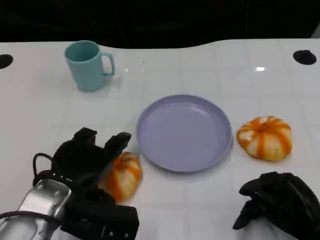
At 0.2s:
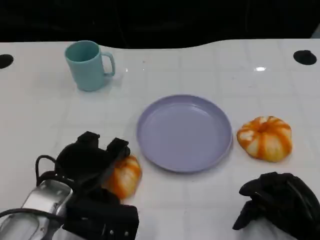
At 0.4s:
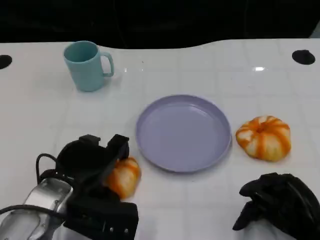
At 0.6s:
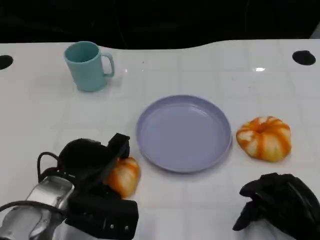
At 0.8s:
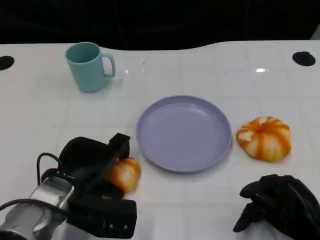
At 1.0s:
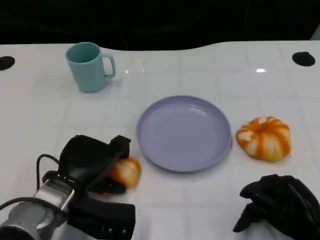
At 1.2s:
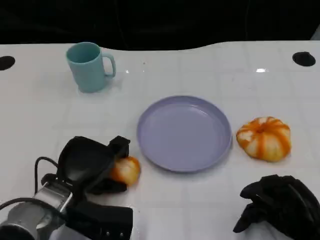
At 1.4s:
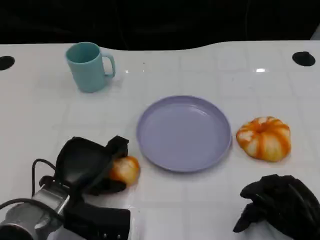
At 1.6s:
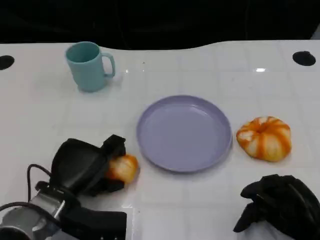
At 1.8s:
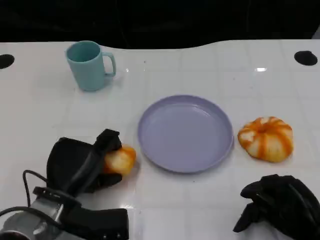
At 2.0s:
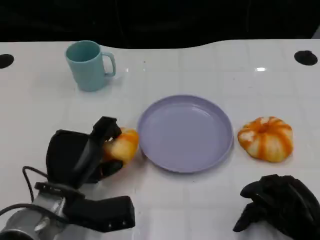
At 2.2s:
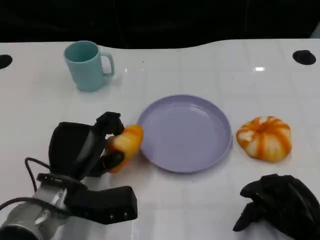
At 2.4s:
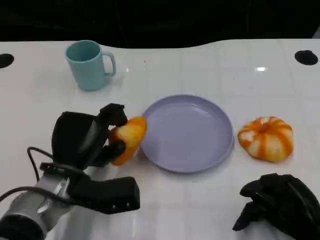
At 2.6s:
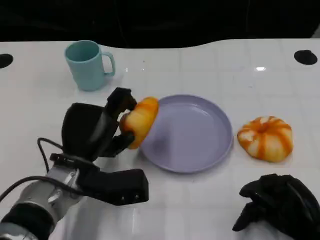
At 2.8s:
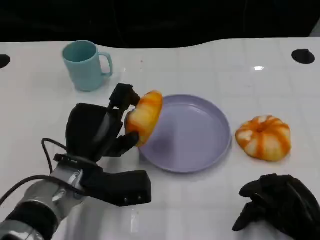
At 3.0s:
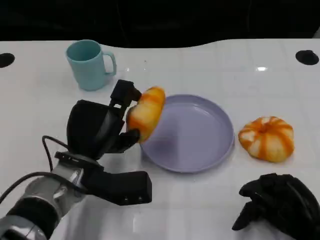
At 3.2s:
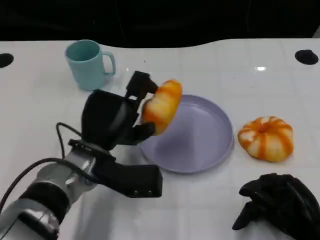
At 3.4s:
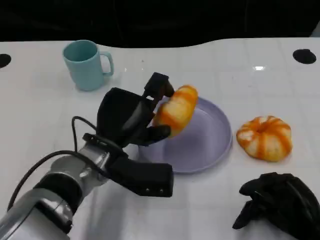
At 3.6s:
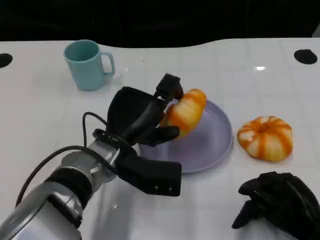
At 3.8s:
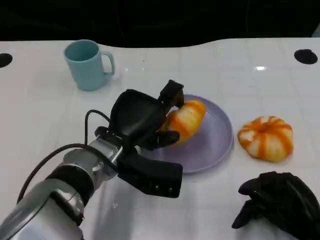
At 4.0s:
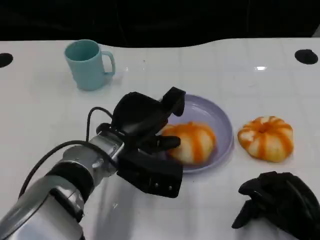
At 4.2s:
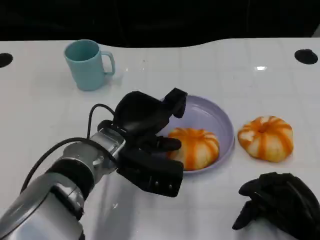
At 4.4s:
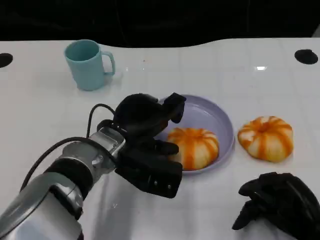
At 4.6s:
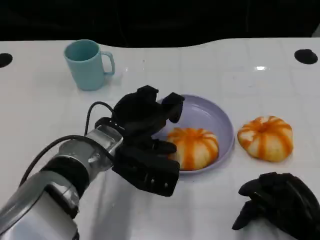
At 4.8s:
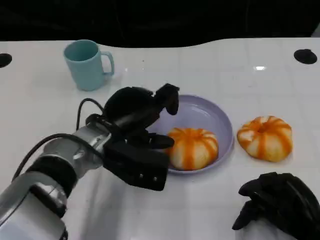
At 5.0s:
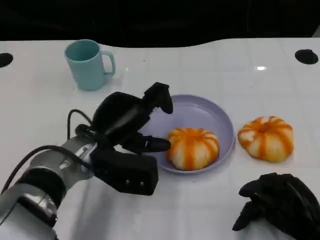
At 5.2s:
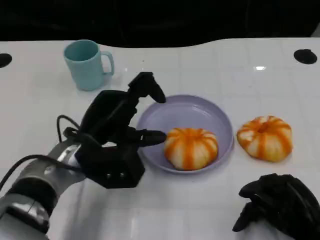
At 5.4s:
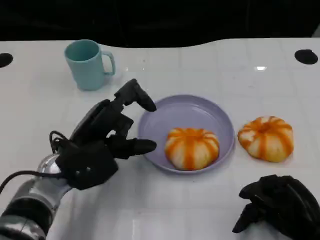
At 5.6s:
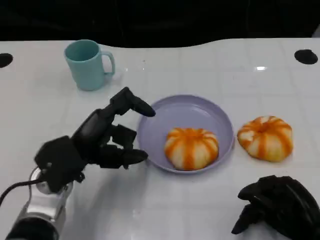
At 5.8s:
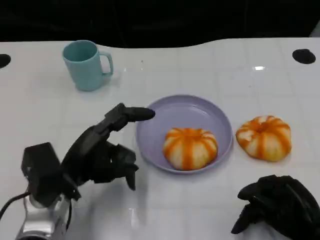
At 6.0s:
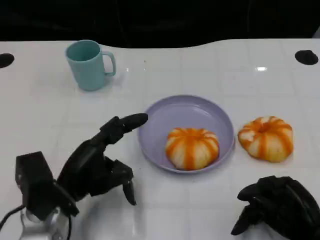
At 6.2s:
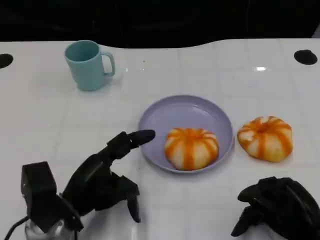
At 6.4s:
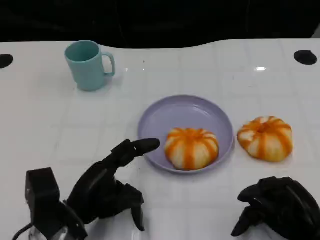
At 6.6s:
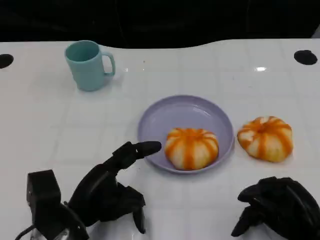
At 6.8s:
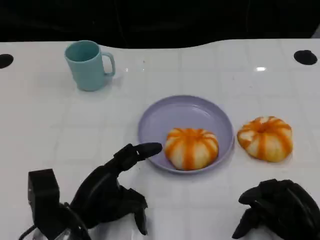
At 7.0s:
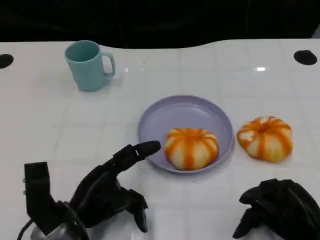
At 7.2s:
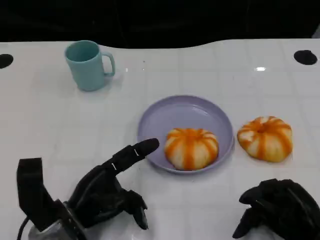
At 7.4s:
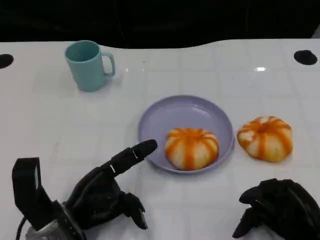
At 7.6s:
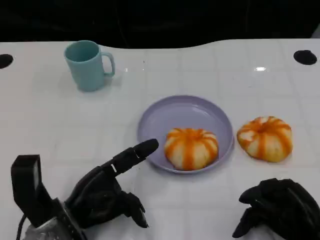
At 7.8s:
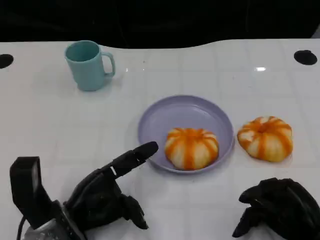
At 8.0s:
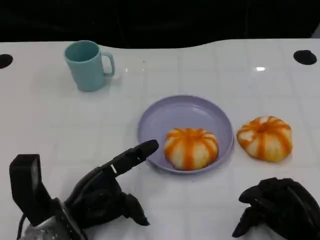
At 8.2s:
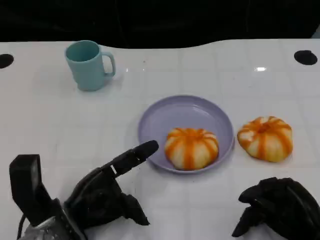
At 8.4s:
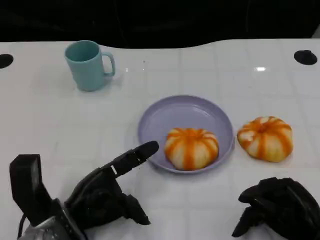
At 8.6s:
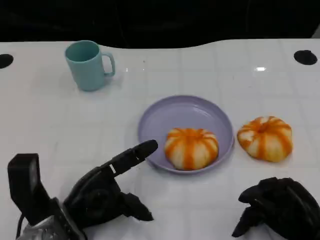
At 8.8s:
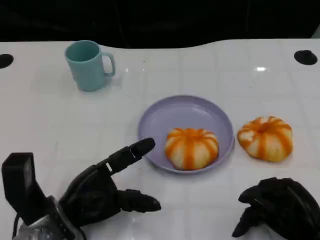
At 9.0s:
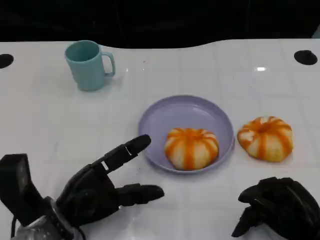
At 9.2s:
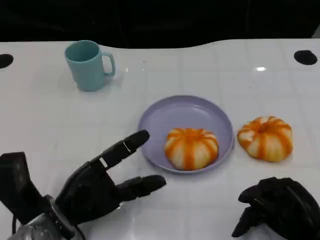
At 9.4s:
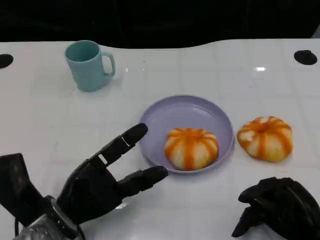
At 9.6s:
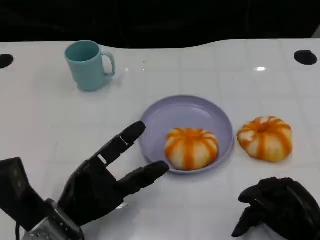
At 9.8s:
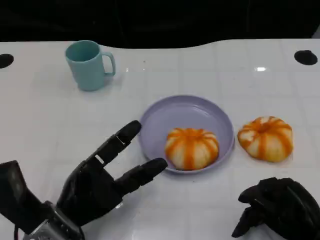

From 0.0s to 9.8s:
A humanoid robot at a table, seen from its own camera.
Task of the whole recording: Grasp the bread from the table and place it into the plate.
From 0.0s to 1.4s: The left hand heads downward, covering some 5 cm.
From 1.4s to 2.8s: The left hand moves some 5 cm.
From 2.8s to 4.2s: The left hand goes roughly 5 cm to the right.
From 4.2s to 5.6s: The left hand heads to the left, covering roughly 10 cm.
From 5.6s to 7.0s: The left hand is displaced downward by approximately 5 cm.
From 8.4s to 9.8s: The hands stay close to where they were, moving slightly.

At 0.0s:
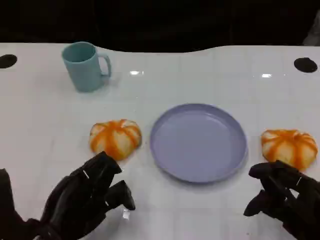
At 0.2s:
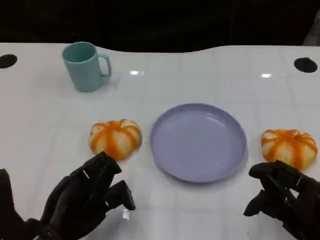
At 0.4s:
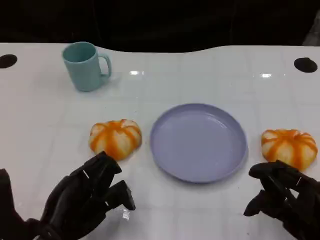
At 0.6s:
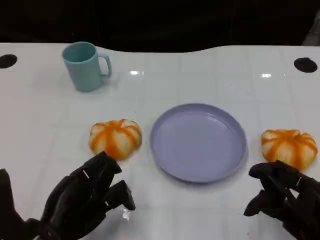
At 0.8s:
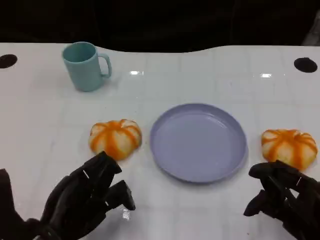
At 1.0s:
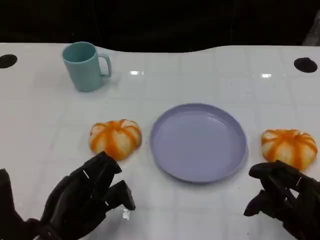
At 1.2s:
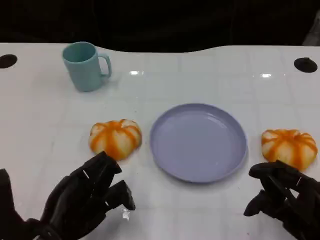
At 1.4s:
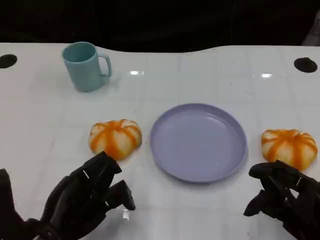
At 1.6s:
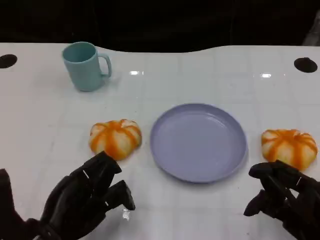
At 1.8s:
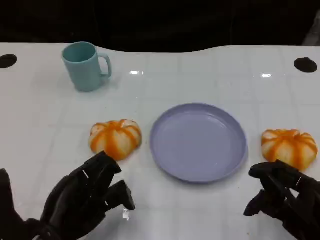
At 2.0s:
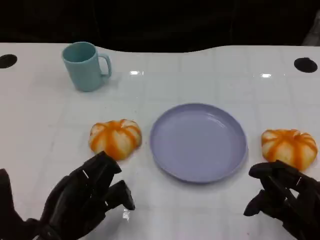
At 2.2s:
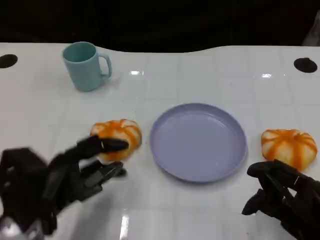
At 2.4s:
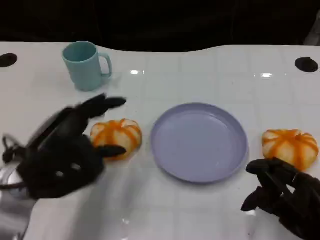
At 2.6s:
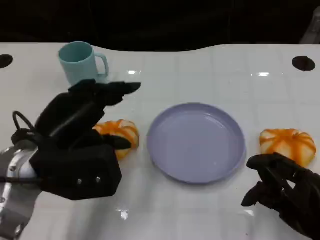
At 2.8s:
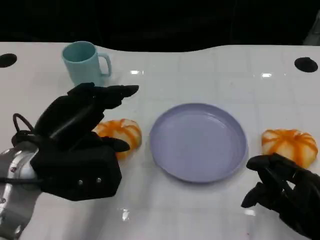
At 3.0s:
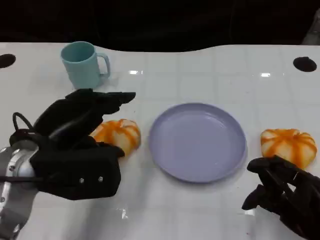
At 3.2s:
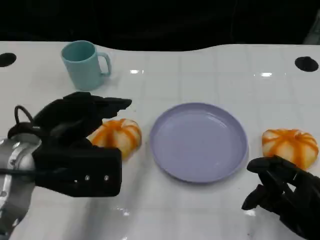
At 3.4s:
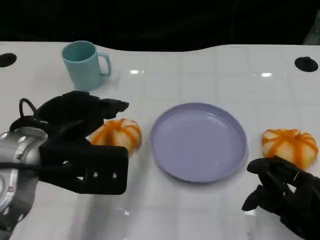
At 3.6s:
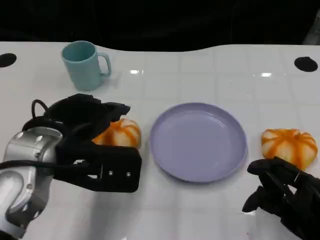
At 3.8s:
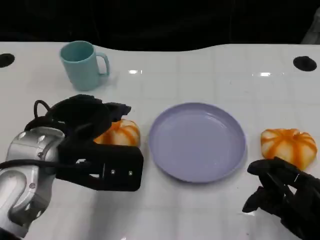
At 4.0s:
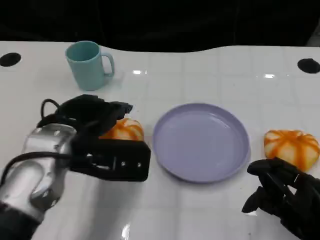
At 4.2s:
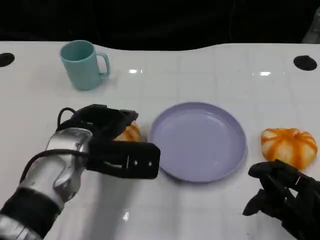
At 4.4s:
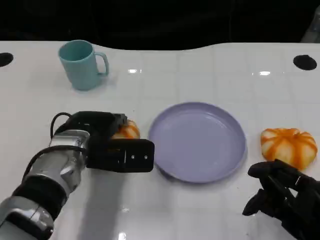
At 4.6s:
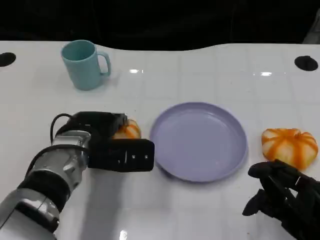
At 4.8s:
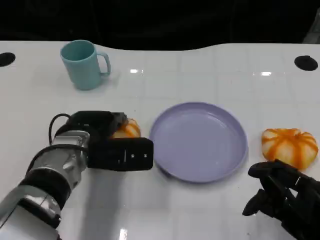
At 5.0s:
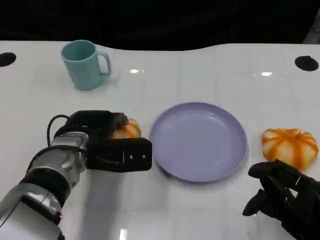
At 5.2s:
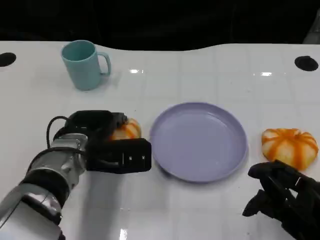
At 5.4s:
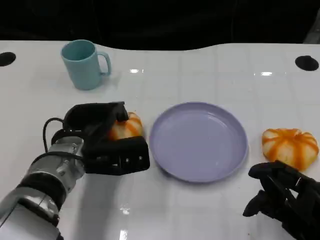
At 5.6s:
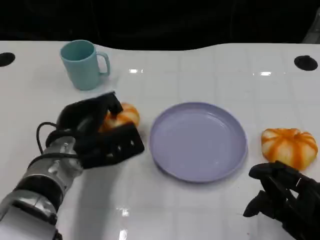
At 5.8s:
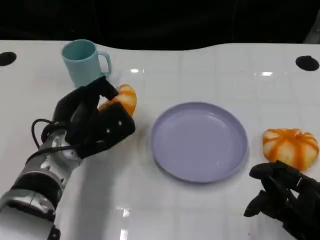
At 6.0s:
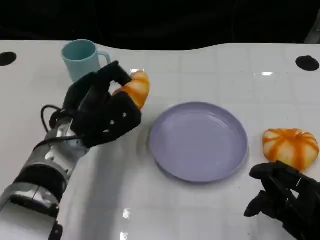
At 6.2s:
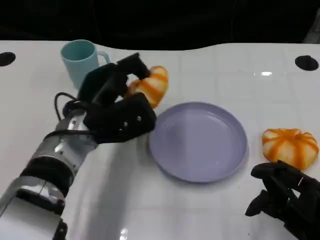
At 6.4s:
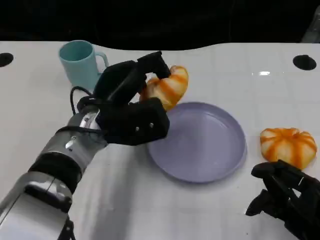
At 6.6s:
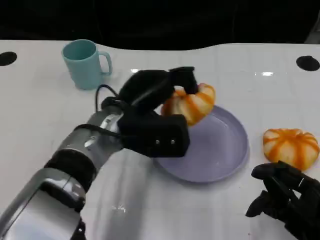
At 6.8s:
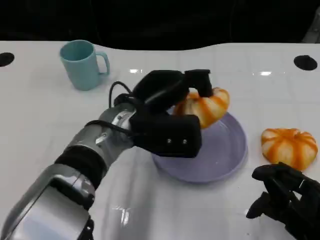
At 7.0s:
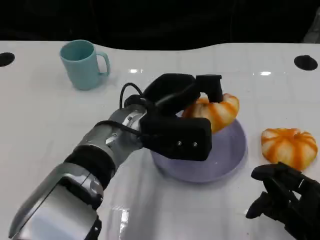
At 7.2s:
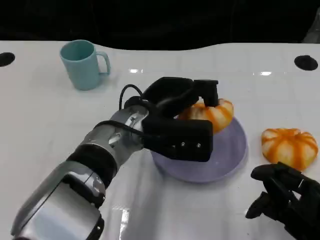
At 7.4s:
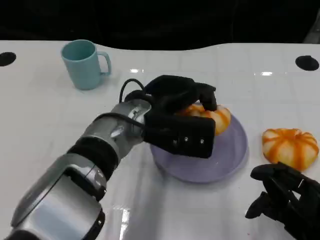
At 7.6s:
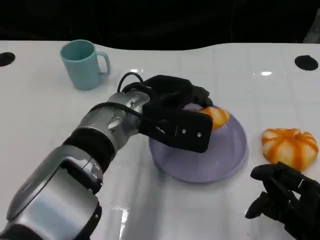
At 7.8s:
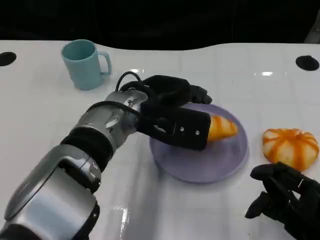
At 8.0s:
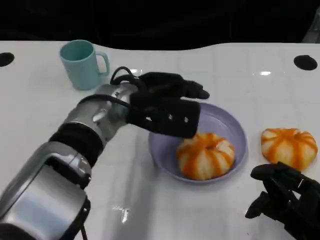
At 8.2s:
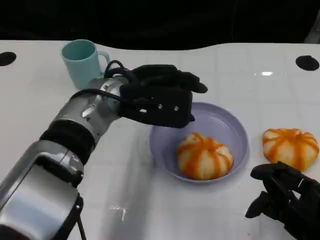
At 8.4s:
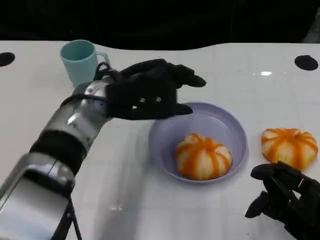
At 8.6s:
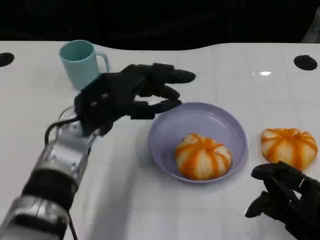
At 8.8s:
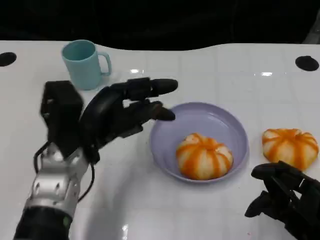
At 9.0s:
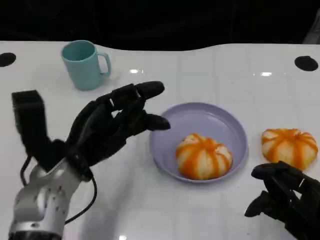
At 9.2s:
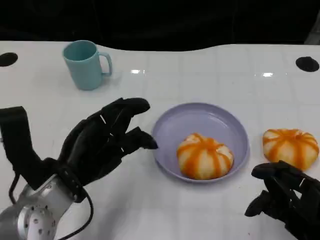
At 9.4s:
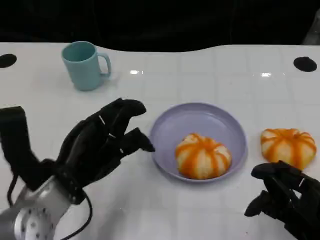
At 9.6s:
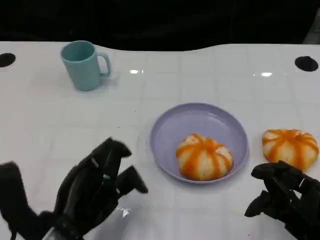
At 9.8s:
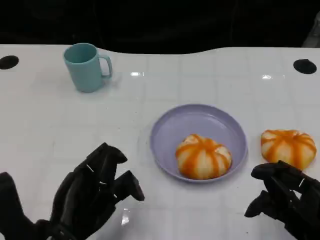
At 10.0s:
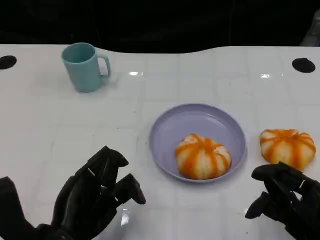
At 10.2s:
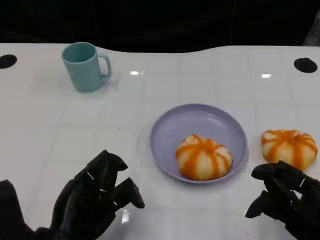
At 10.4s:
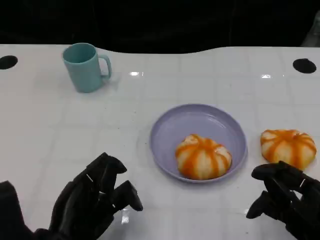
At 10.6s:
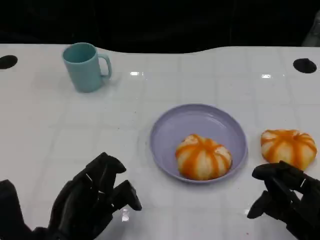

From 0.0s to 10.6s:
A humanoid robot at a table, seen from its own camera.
Task of the whole recording: Grasp the bread from the table and place it into the plate.
From 0.0s to 1.6s: Both hands stay about where they are.
From 1.6s to 3.0s: The left hand shifts some 10 cm upward and forward.
From 3.0s to 4.6s: The left hand is displaced downward, forward and to the right by approximately 10 cm.
From 6.0s to 7.6s: The left hand moves to the right, approximately 10 cm.
From 7.6s to 9.0s: The left hand moves to the left and backward, roughly 15 cm.
From 9.0s to 10.6s: The left hand goes approximately 10 cm backward.

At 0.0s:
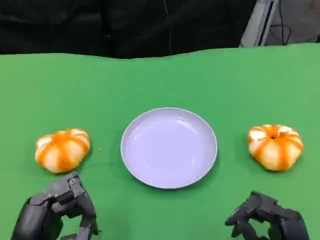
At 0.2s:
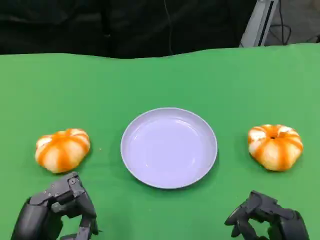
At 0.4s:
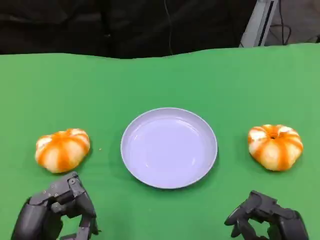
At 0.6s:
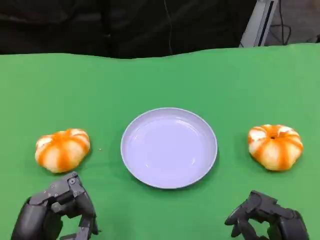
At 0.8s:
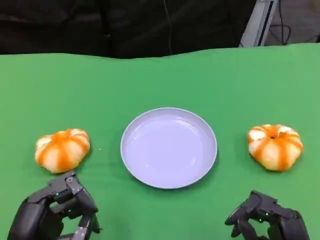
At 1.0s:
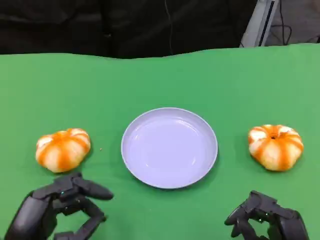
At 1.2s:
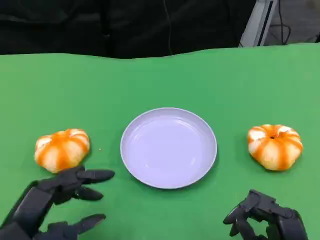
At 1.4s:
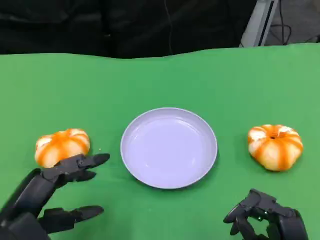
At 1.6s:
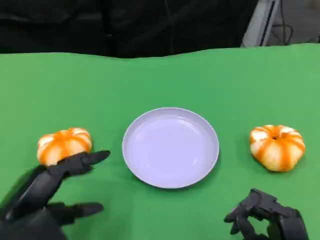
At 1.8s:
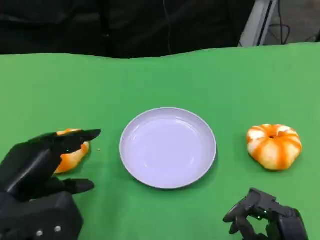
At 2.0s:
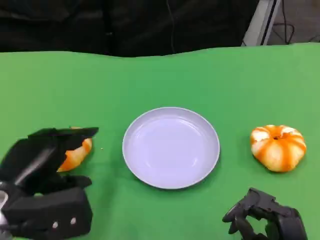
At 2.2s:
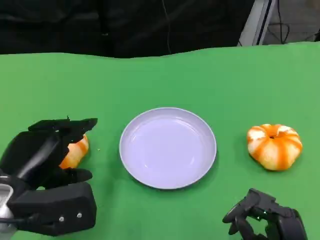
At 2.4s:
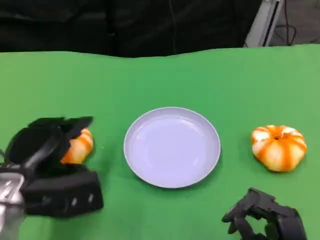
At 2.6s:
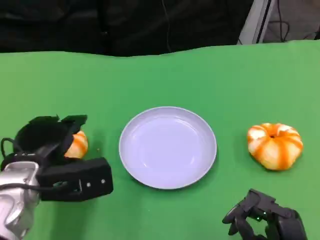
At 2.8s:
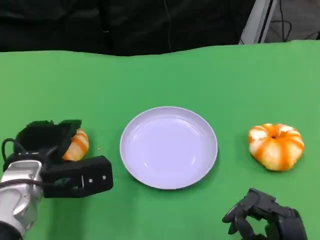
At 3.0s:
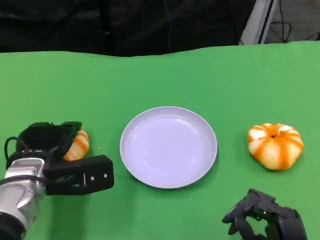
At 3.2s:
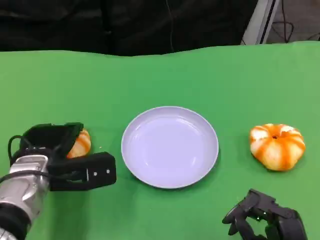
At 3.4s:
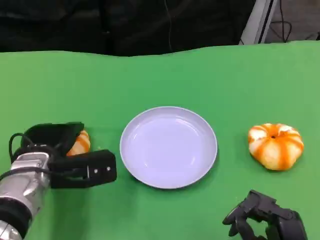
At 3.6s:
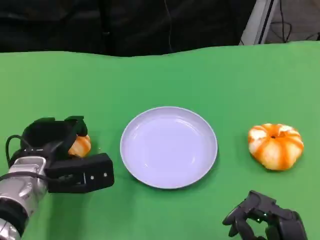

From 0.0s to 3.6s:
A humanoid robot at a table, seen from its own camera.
Task of the whole recording: Grasp the bread from the table and place it into the plate.
From 0.0s to 1.8s: The left hand moves forward and upward, some 10 cm.
From 1.8s to 3.6s: The left hand is displaced forward and downward by approximately 10 cm.
